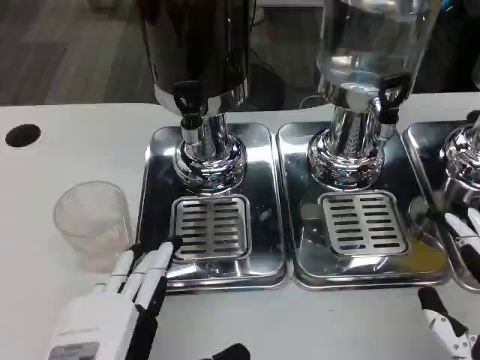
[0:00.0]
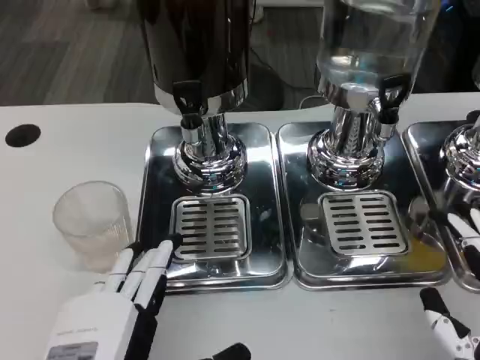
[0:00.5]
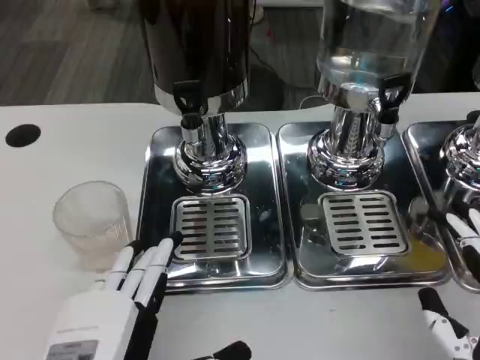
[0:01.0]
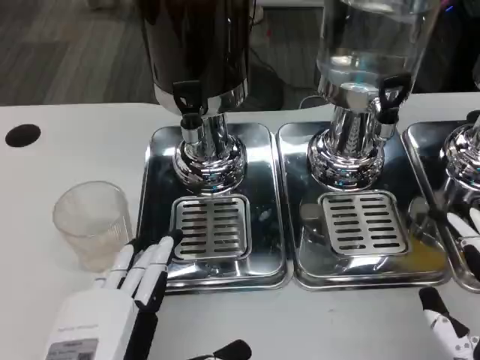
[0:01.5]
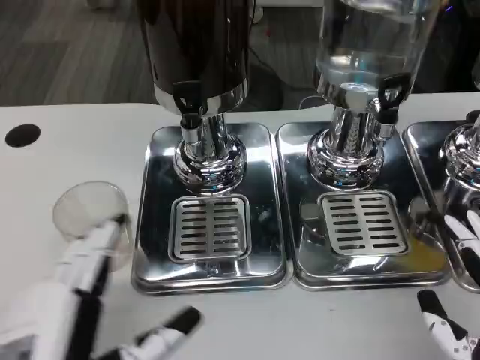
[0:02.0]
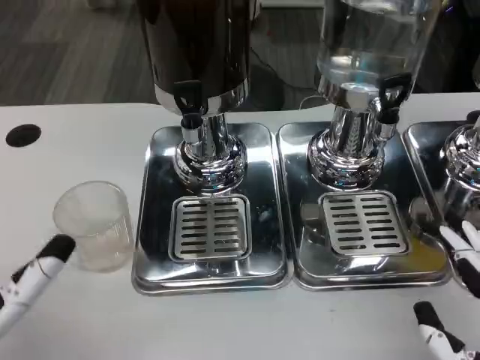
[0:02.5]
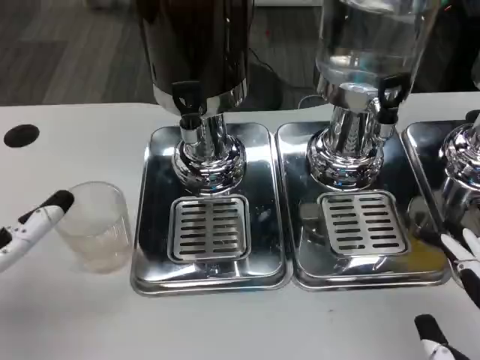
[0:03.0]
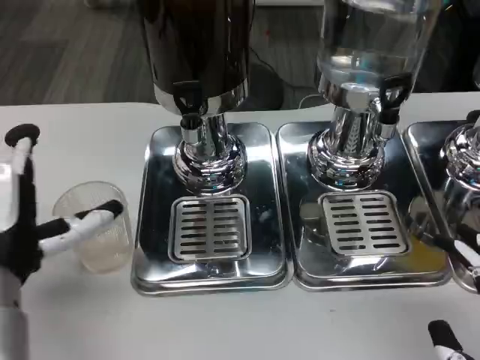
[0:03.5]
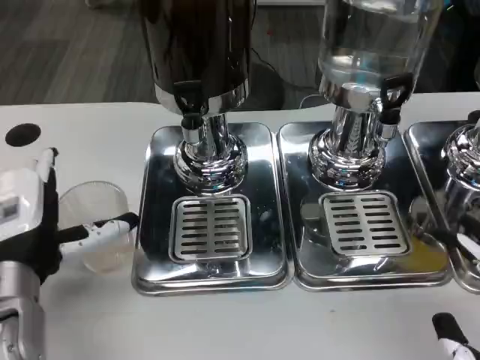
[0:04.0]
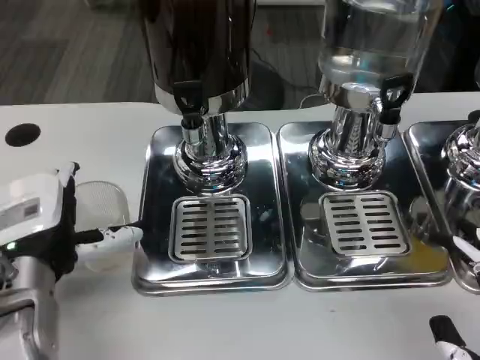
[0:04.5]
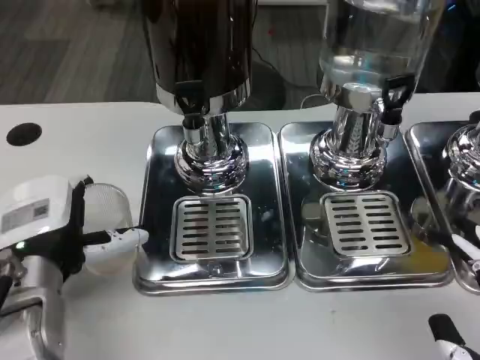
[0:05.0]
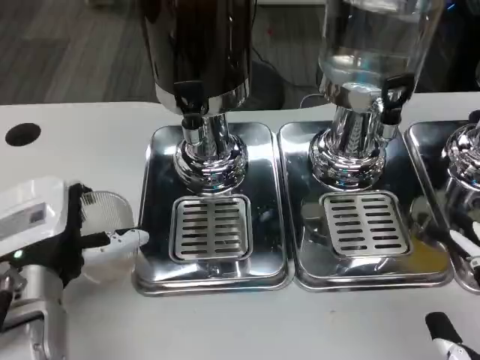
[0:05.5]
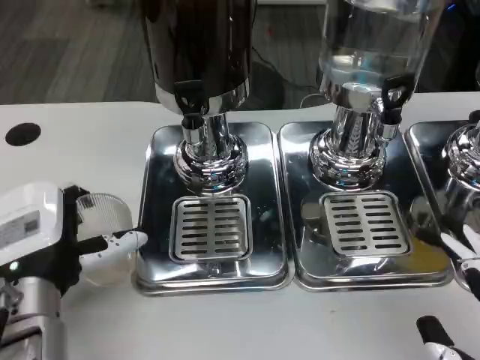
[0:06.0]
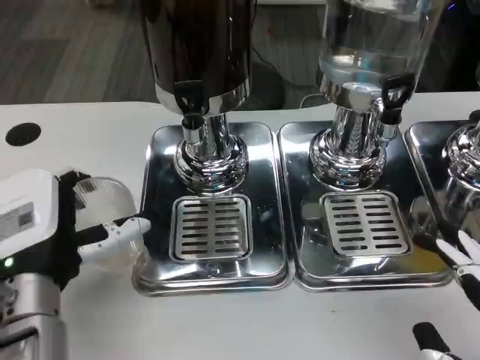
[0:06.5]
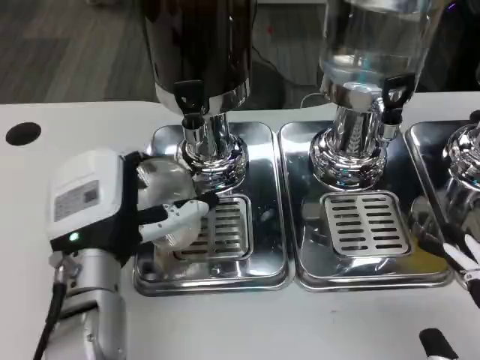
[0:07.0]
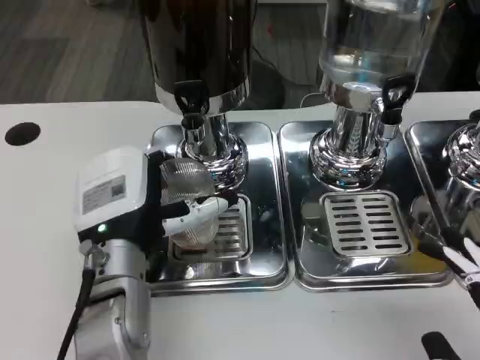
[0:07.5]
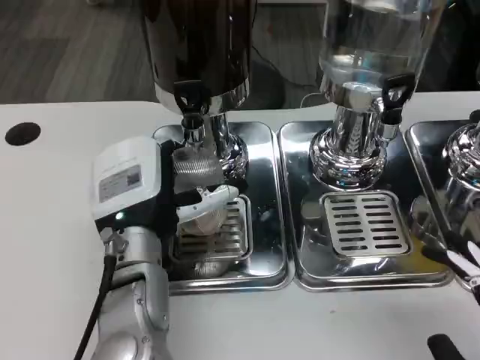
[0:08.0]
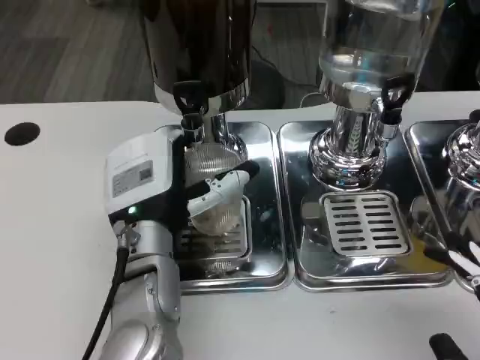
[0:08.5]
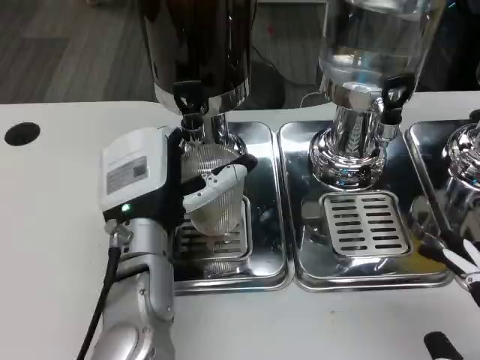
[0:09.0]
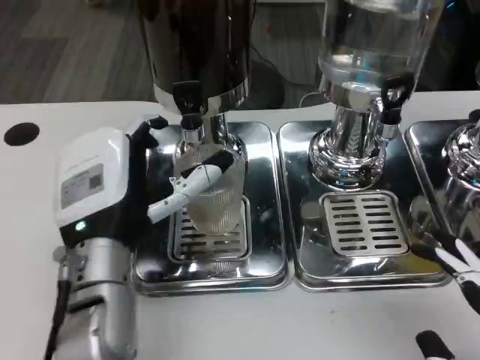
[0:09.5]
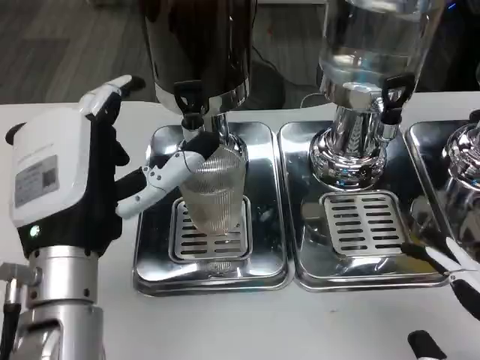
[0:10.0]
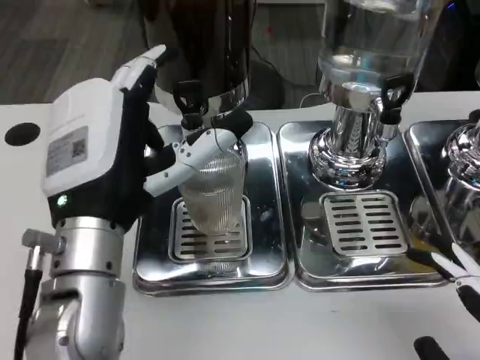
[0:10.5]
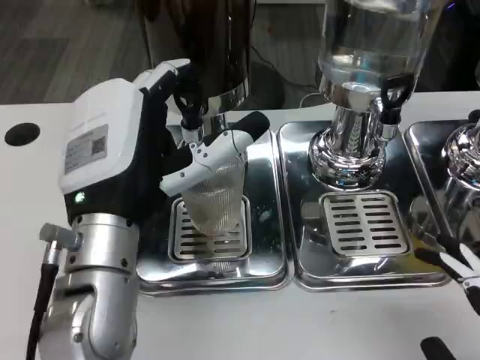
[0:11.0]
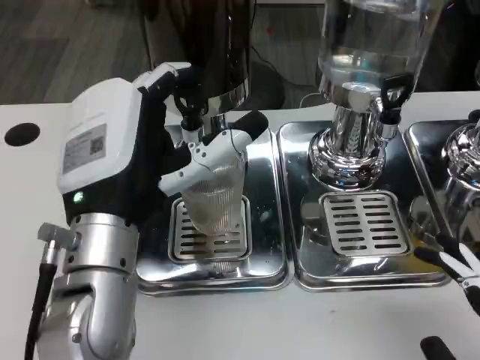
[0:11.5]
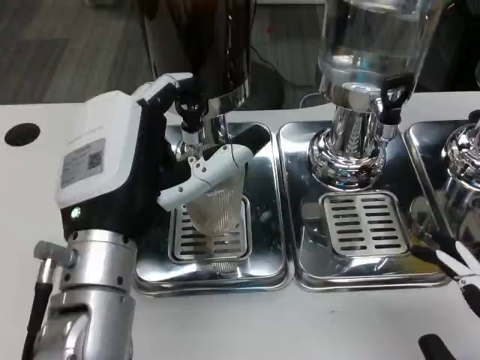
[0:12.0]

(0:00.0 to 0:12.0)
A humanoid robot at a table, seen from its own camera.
Task of the whole recording: Grasp the cup under the faucet to collect the drink, then remove the cup.
0:00.0 - 0:02.0: The hands stay close to where they were, moving slightly.
0:02.0 - 0:04.0: The left hand is displaced forward by approximately 15 cm.
0:04.0 - 0:06.0: The hands move only a little.
0:06.0 - 0:08.0: The left hand goes roughly 10 cm to the right and forward.
0:08.0 - 0:10.0: The left hand heads backward and upward, covering some 10 cm.

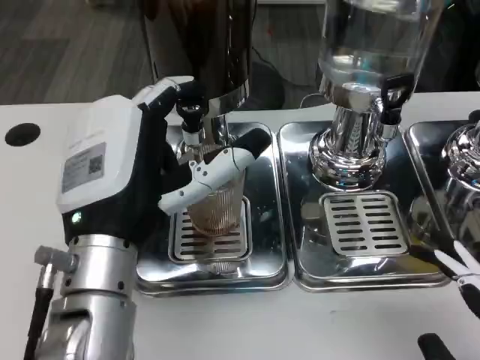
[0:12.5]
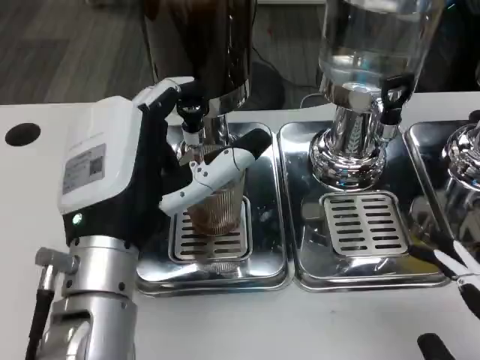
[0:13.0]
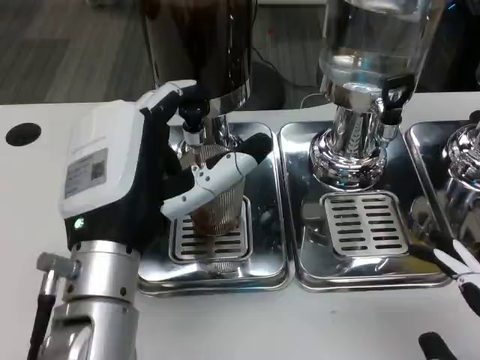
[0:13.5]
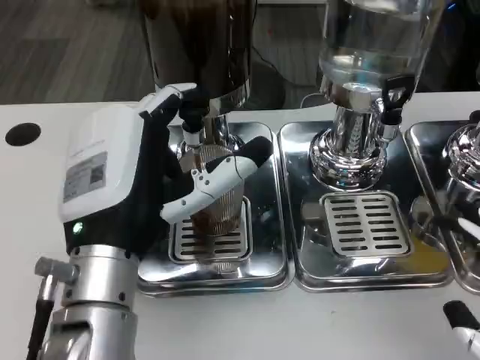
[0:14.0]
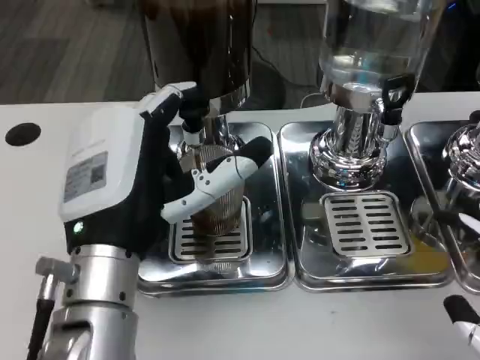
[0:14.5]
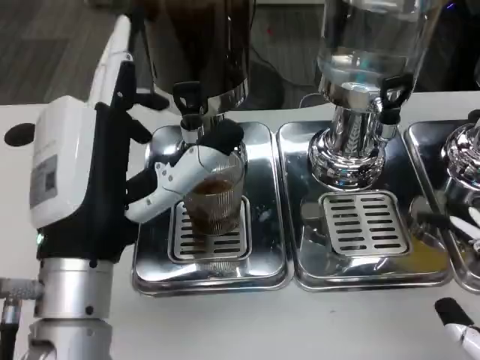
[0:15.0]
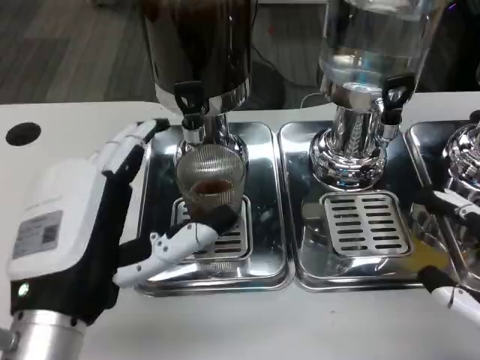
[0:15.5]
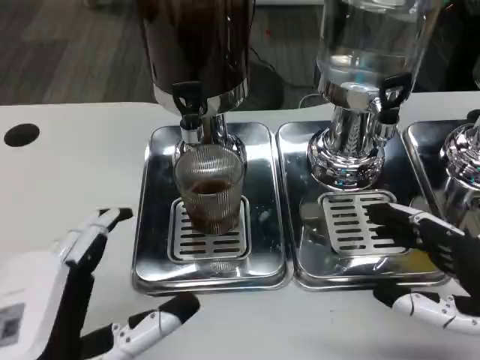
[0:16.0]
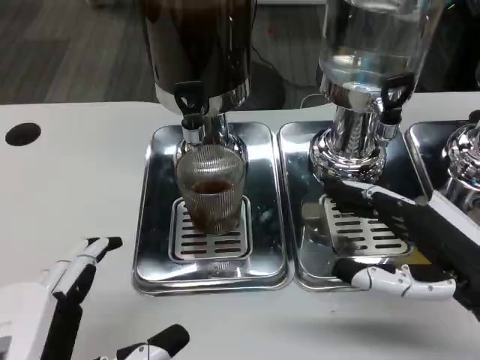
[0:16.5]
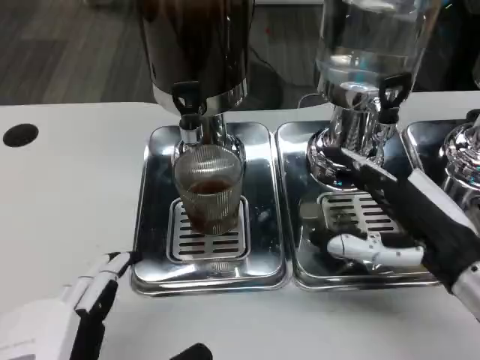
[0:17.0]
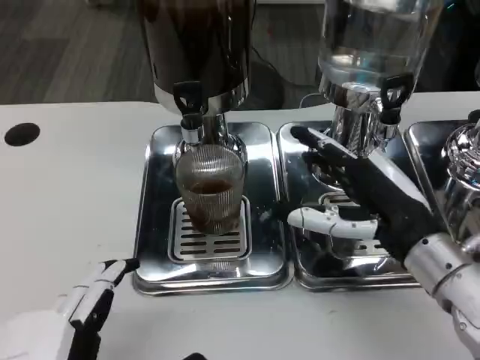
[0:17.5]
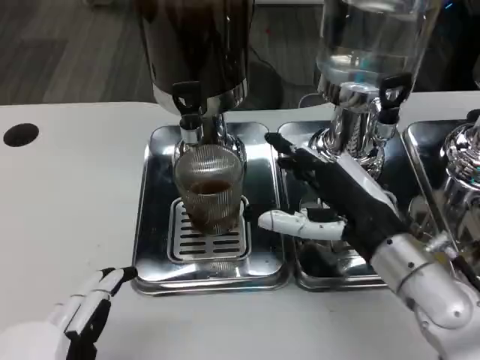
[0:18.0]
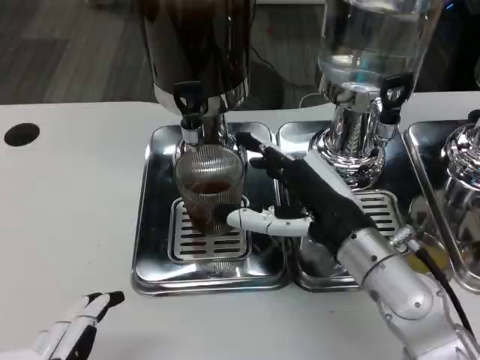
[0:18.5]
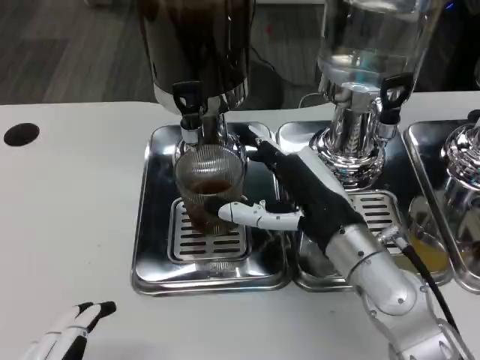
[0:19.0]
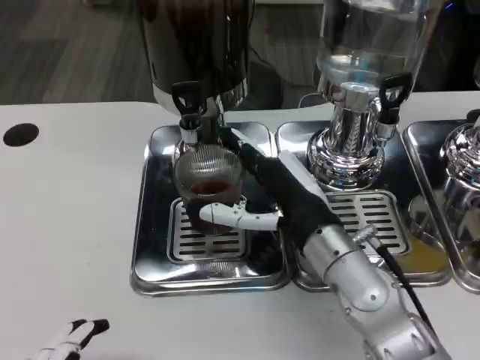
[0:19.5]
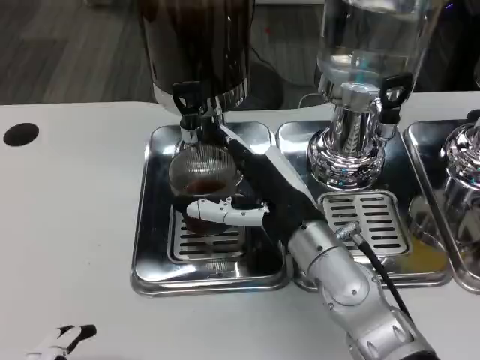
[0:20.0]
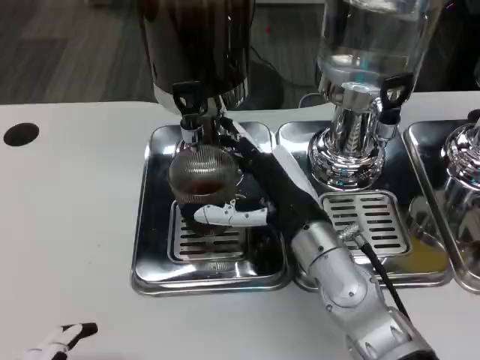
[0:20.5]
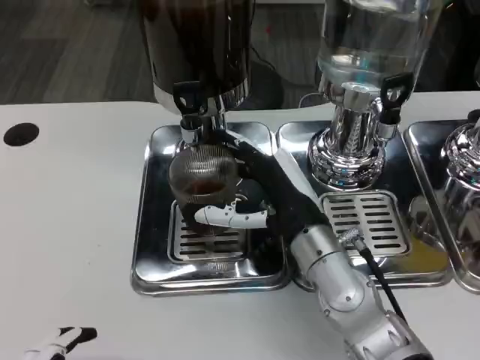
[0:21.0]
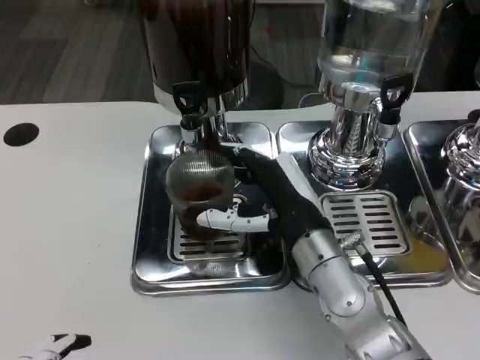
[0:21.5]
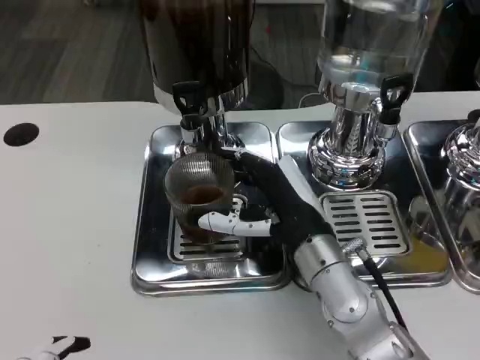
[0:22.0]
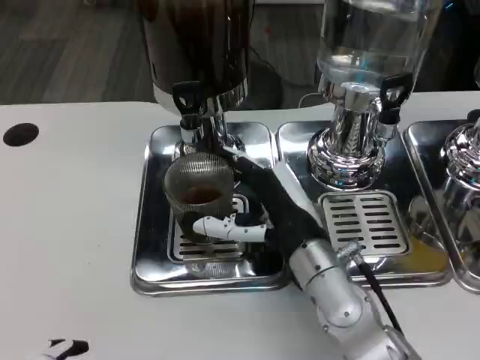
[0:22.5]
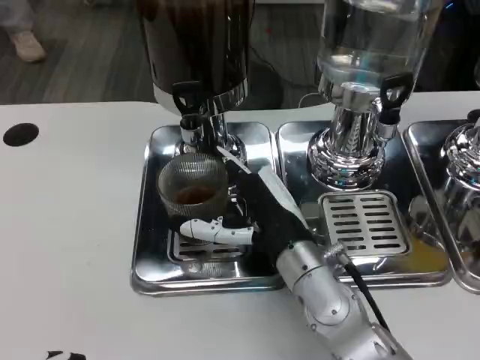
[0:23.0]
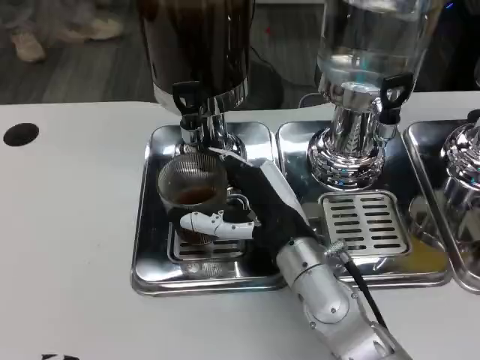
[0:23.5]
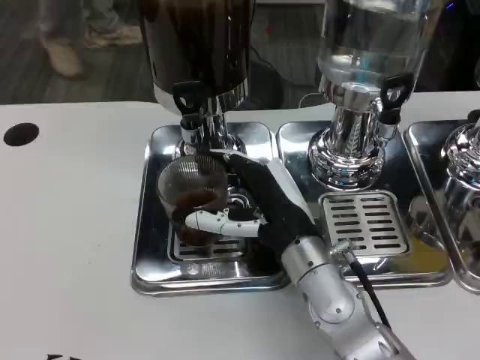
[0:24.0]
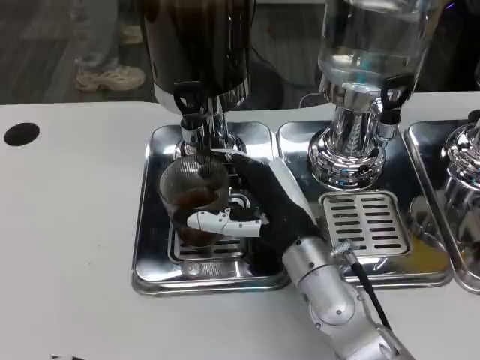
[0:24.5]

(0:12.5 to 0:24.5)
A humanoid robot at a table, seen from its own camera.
Task of the whole recording: Grasp the cup under the faucet to collect the drink, then remove the cup.
0:12.5 - 0:14.5: The hands make only small movements.
0:14.5 - 0:16.5: The right hand shifts roughly 10 cm forward. The left hand goes approximately 15 cm backward and to the left.
0:16.5 - 0:18.5: The right hand is displaced to the left and forward by about 15 cm.
0:18.5 - 0:20.5: The right hand moves about 5 cm.
0:20.5 - 0:22.5: The hands make only small movements.
0:22.5 - 0:24.5: Neither hand changes place.

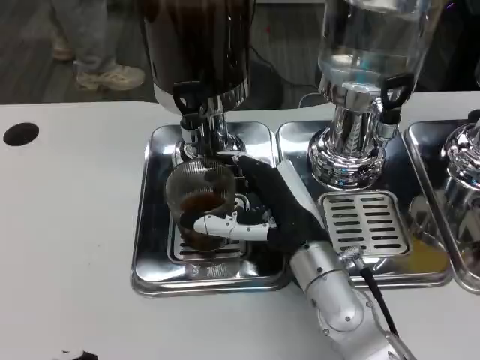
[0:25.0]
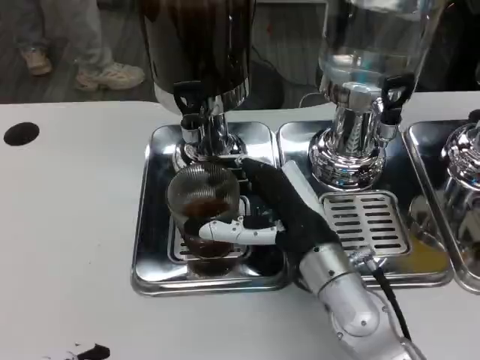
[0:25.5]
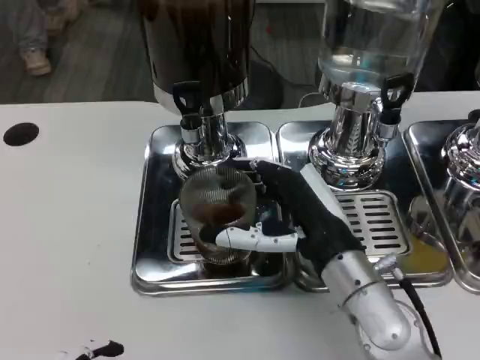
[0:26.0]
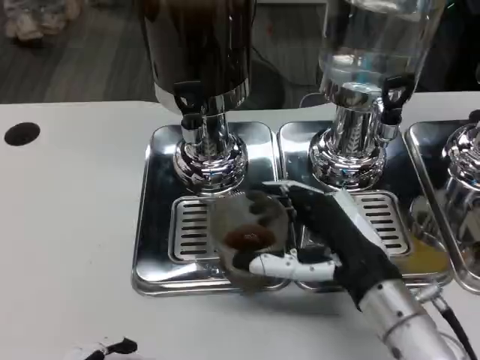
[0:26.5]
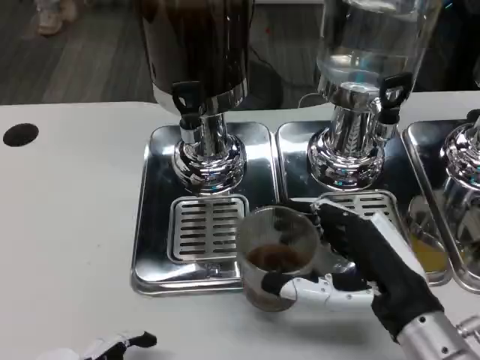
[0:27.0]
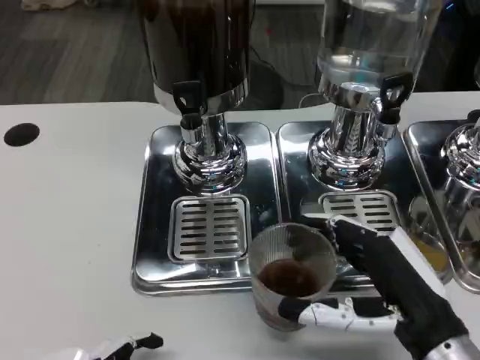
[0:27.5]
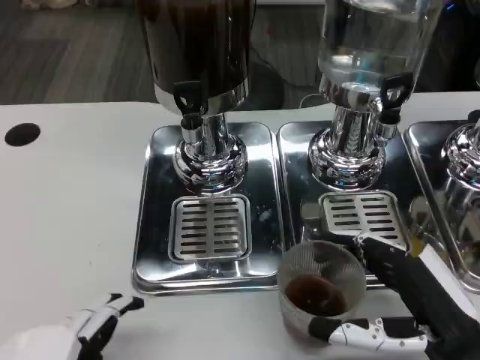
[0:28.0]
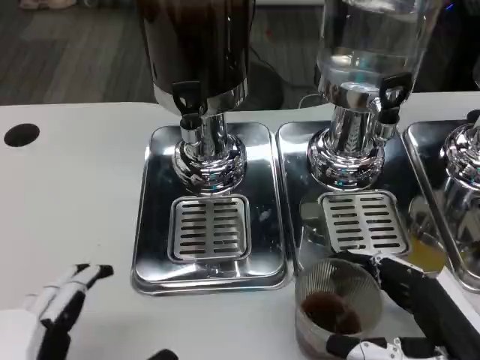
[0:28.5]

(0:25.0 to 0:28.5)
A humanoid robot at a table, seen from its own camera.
Task of the whole recording: Grasp the cup under the faucet to collect the drink, then remove the cup.
0:25.0 - 0:27.0: The right hand goes some 15 cm to the right and backward.
0:27.0 - 0:28.5: The right hand moves to the right, approximately 5 cm.
